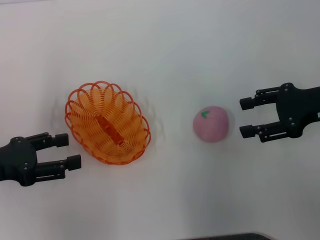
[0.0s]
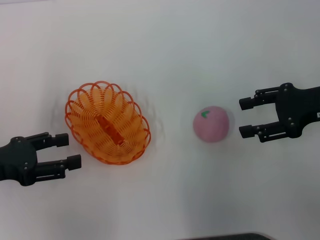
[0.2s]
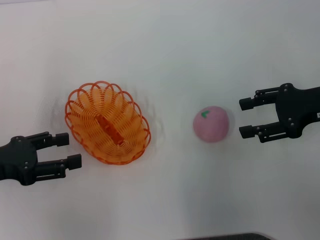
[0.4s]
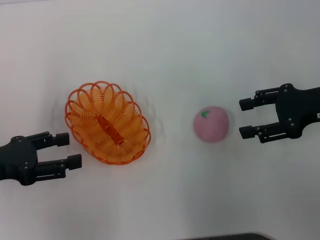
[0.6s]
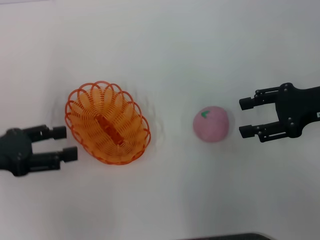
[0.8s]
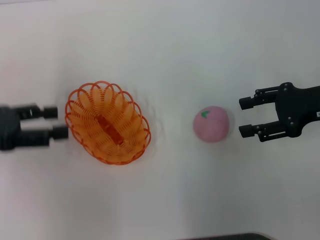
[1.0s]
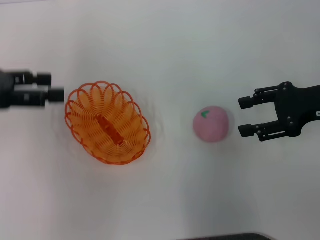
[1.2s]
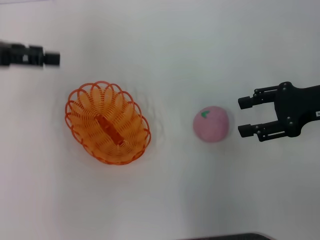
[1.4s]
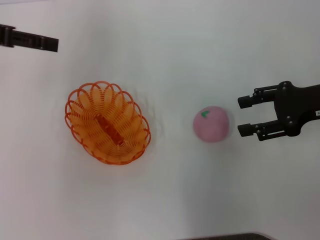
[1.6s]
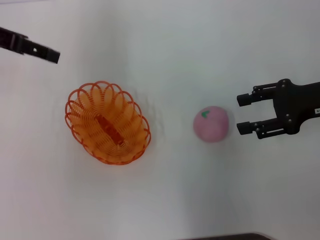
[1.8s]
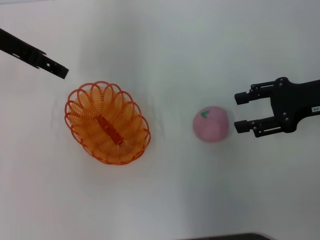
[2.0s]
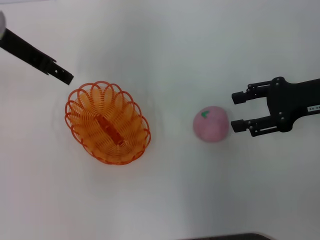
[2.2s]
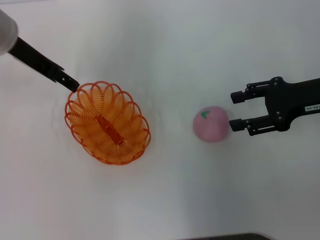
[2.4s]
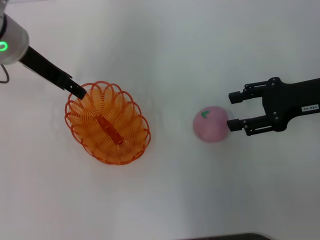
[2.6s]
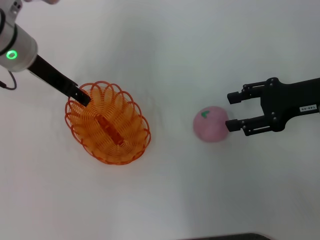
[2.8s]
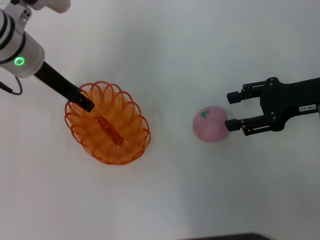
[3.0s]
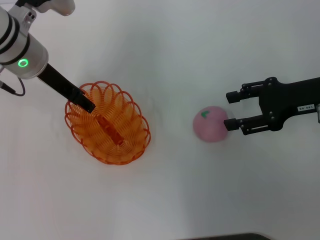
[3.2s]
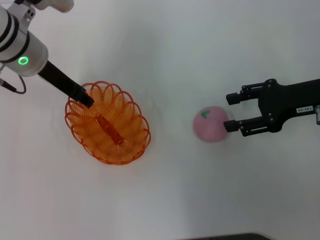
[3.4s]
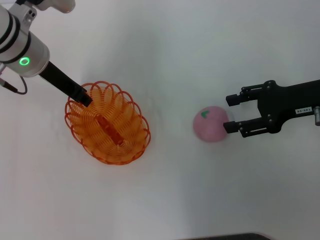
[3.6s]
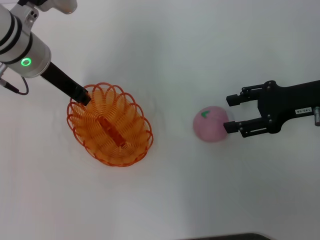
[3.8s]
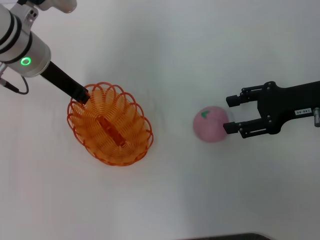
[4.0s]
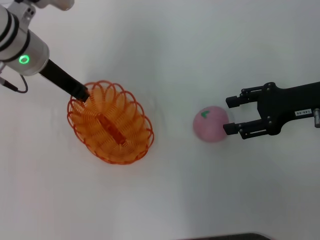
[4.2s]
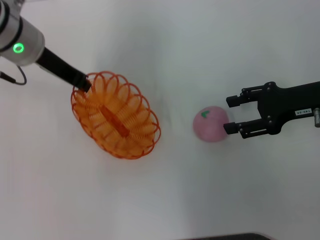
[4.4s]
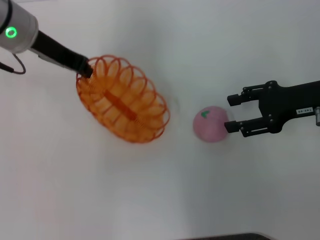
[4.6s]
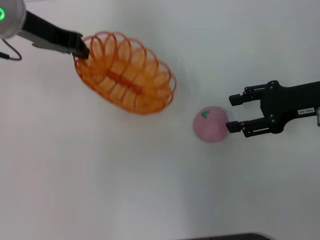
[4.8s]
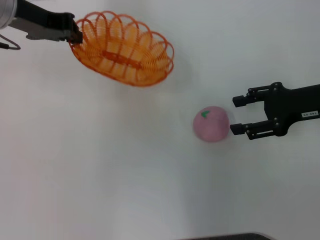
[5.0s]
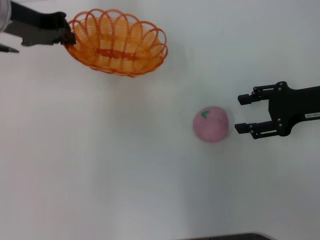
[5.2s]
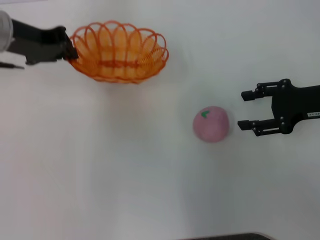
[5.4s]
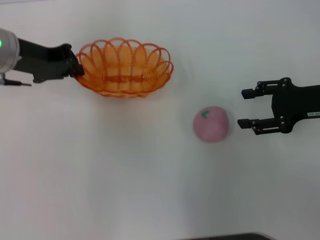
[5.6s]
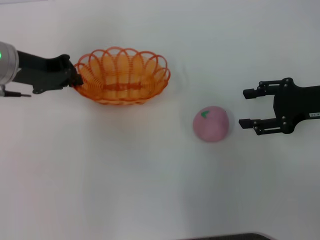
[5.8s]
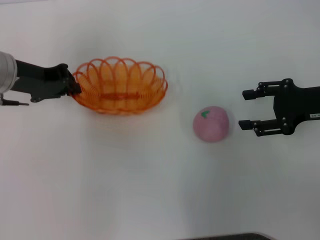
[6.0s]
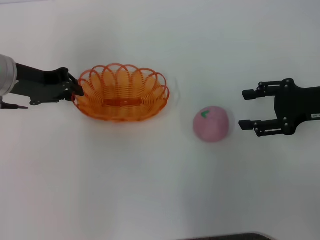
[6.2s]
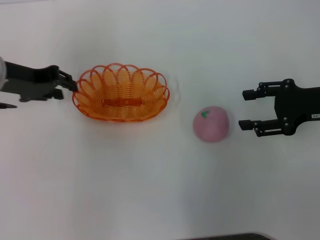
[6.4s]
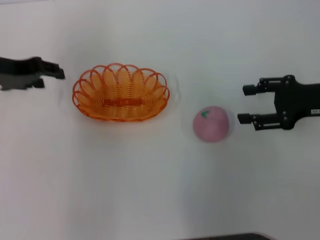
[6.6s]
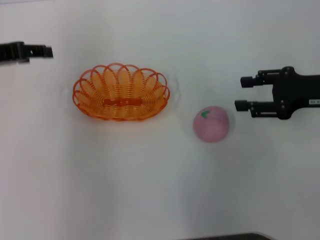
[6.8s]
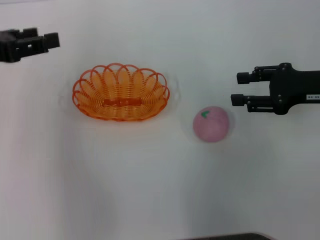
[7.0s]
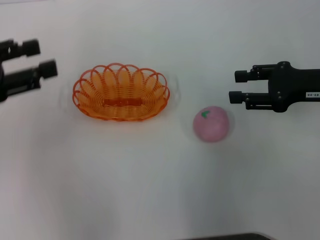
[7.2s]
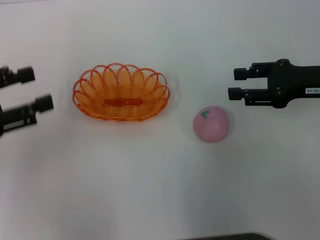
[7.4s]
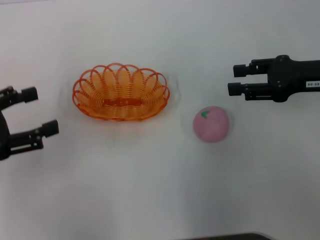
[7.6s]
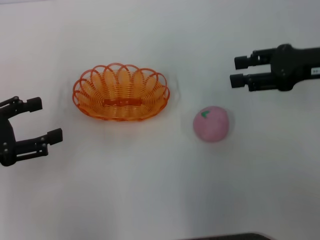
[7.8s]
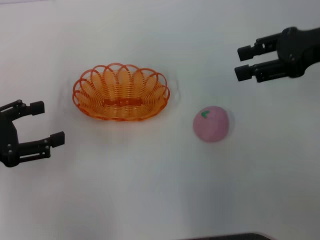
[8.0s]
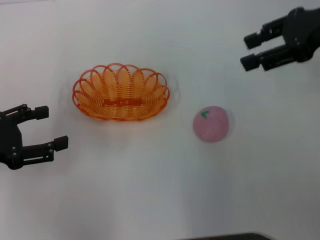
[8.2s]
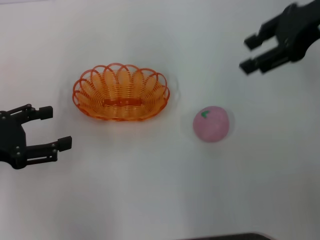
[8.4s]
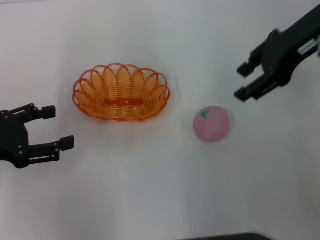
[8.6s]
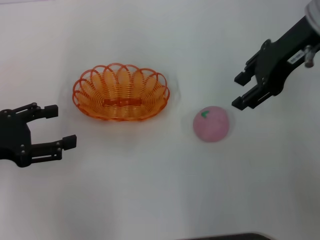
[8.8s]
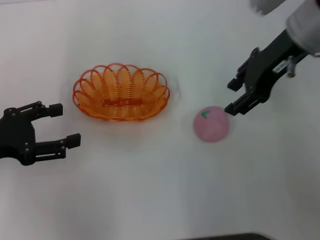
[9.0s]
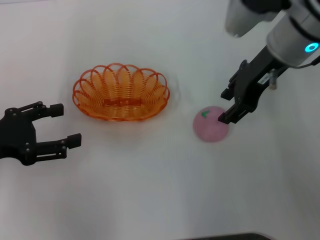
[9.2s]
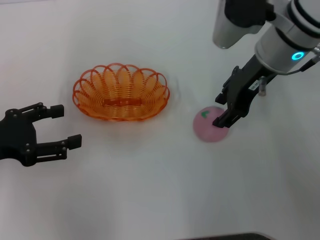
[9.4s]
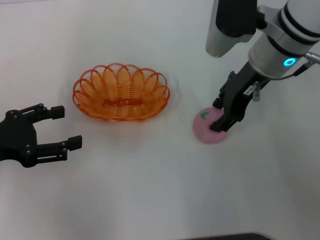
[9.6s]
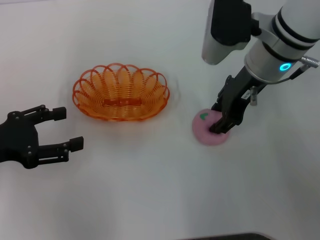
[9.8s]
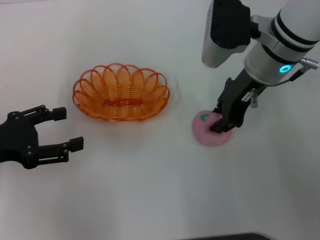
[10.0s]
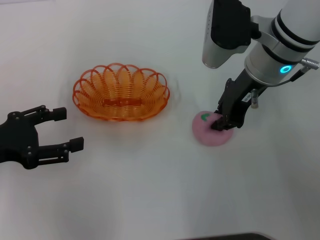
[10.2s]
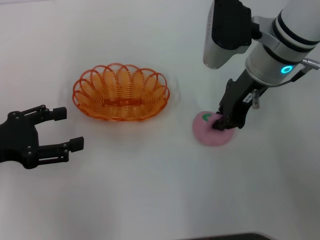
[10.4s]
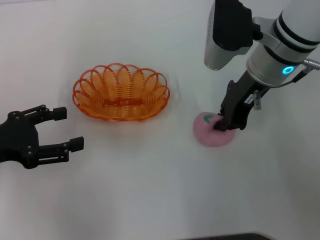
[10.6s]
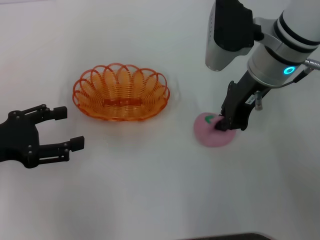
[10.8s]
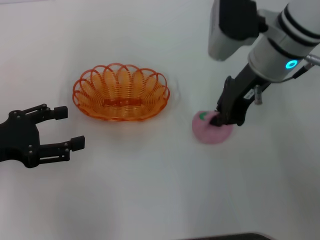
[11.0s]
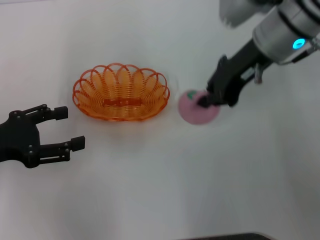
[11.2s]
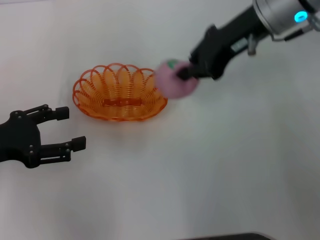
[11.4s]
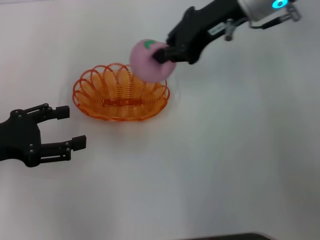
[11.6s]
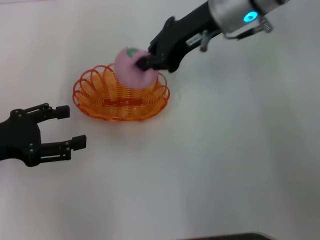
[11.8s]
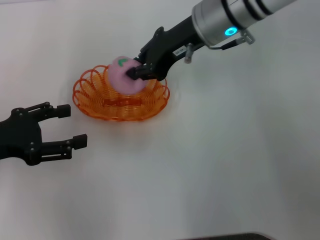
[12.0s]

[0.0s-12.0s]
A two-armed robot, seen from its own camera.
Step, 0.0s to 4.6s: Pick up the basket with the left gripper.
Step, 4.8s to 7.6s: Place the basket in the center of view with the left gripper.
Step, 7.8s to 11.4s: Pick up the peach with the right gripper.
0.0s to 1.6s: The left gripper travels upward and forward by some 20 cm.
1.6s to 3.0s: The left gripper moves to the right and downward, approximately 15 cm.
3.0s to 4.4s: The left gripper closes its fingers.
4.4s to 6.0s: The left gripper moves to the left, about 5 cm.
6.0s to 7.6s: The left gripper heads backward and to the left, covering roughly 15 cm, and opens its fingers.
7.6s to 9.0s: The right gripper travels to the left and upward by roughly 15 cm.
9.0s to 10.4s: The right gripper shifts some 5 cm downward, and closes up.
10.4s to 12.0s: The right gripper shifts roughly 5 cm to the left.

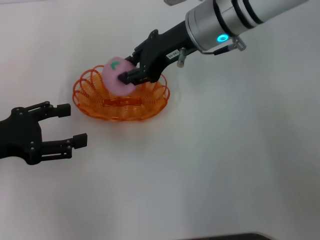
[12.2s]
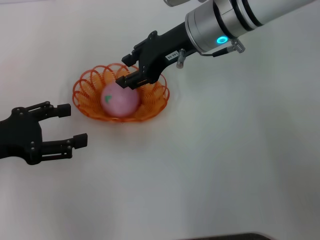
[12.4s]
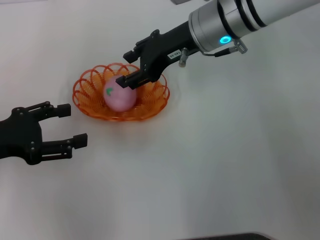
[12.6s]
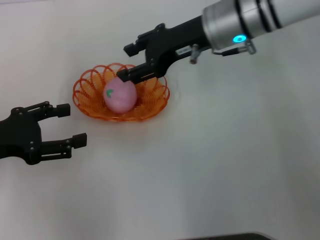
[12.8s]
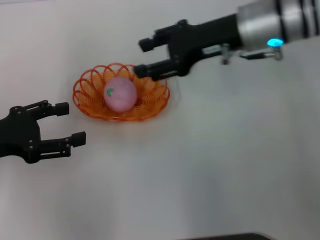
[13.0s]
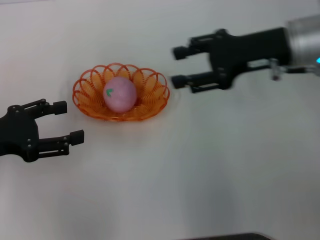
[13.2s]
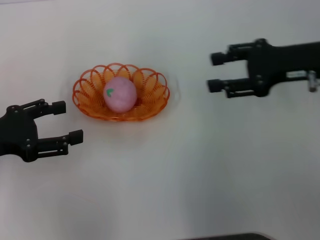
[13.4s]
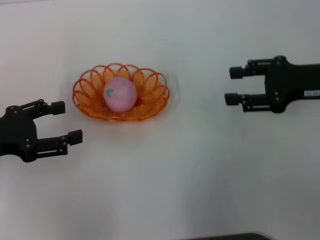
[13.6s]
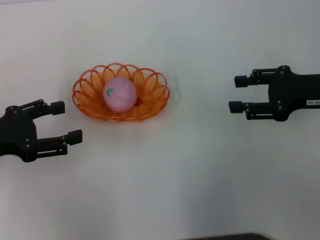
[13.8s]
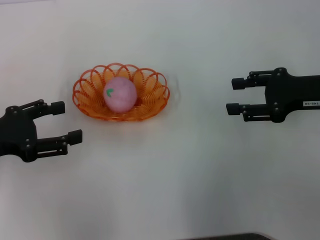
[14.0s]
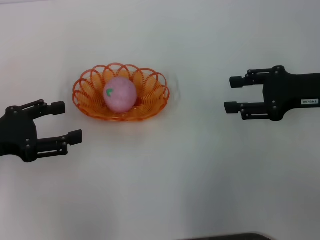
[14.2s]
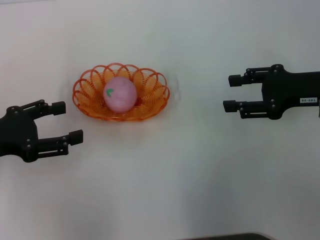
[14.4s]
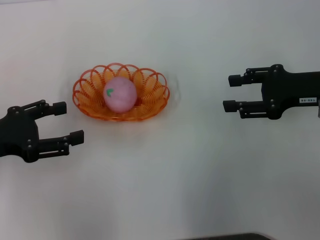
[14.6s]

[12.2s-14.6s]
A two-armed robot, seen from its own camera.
Step, 12.2s to 13.2s: Place the peach into the basket with the right gripper.
12.2s to 13.4s: The right gripper shifts about 20 cm to the right and backward, and opens.
13.4s to 14.6s: The grippers move only a little.

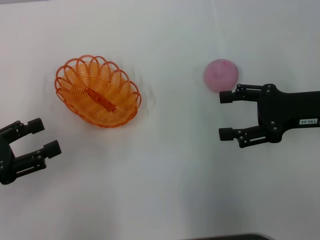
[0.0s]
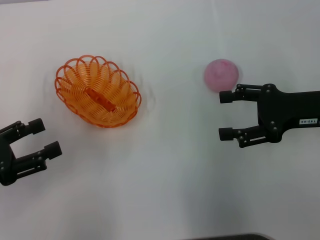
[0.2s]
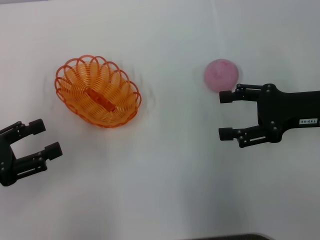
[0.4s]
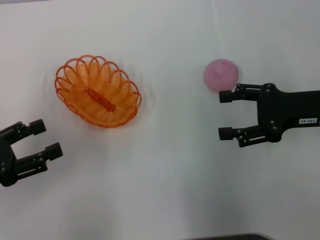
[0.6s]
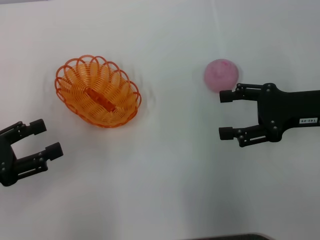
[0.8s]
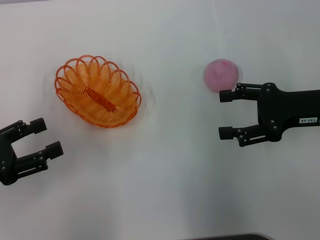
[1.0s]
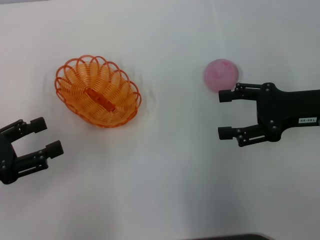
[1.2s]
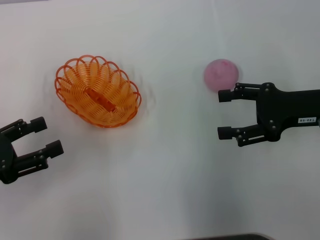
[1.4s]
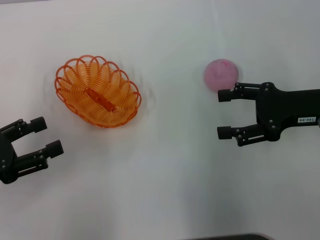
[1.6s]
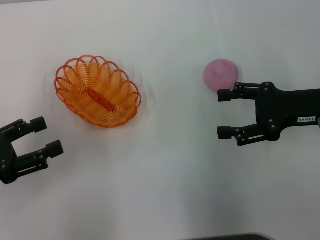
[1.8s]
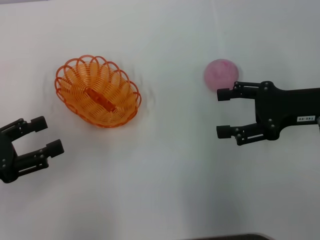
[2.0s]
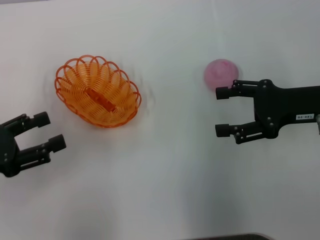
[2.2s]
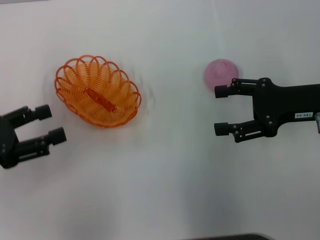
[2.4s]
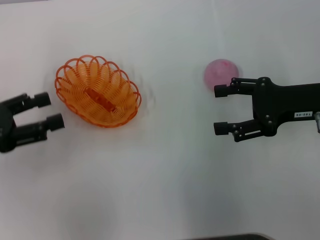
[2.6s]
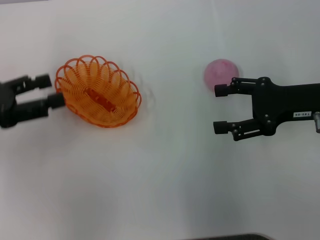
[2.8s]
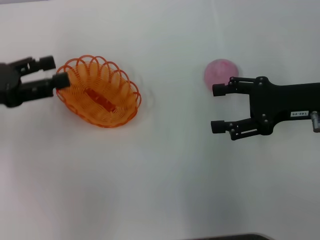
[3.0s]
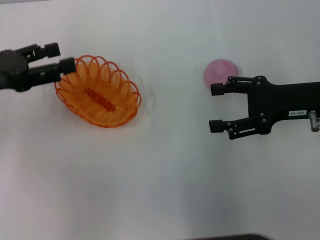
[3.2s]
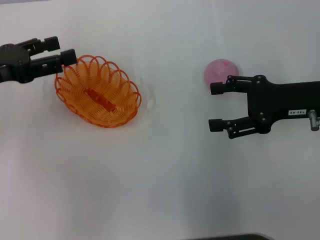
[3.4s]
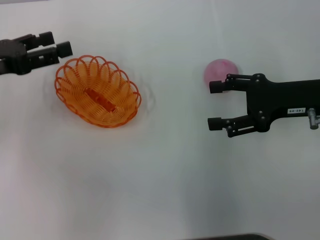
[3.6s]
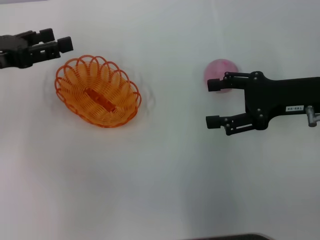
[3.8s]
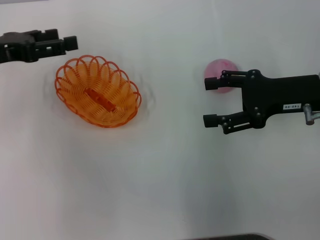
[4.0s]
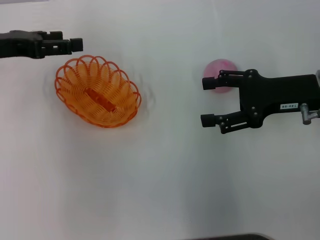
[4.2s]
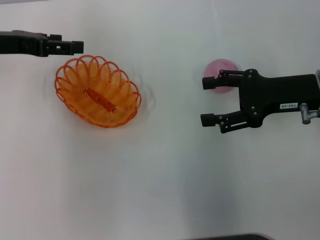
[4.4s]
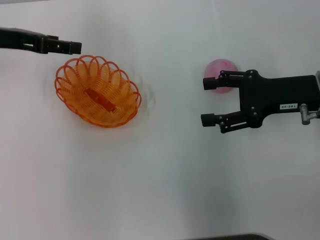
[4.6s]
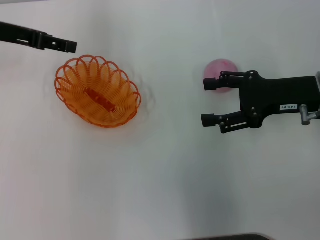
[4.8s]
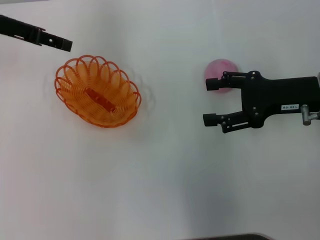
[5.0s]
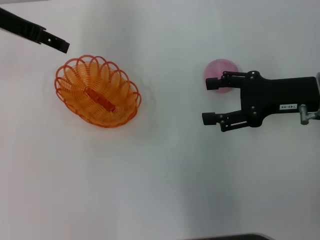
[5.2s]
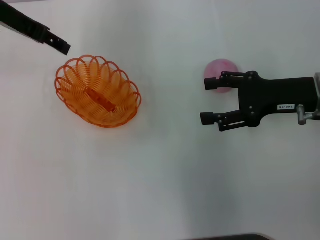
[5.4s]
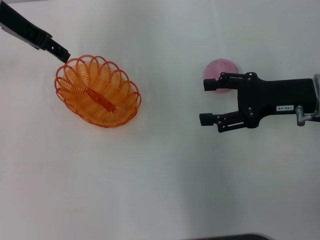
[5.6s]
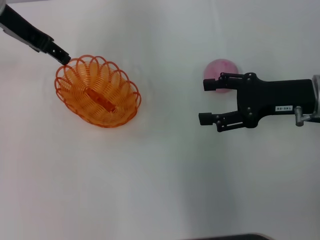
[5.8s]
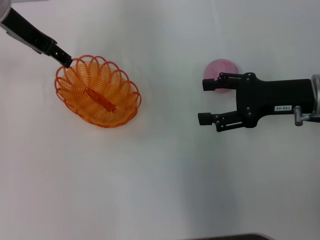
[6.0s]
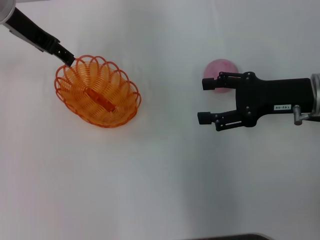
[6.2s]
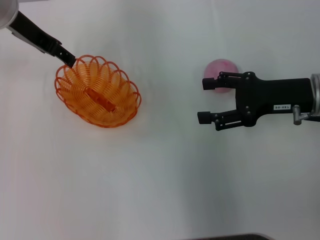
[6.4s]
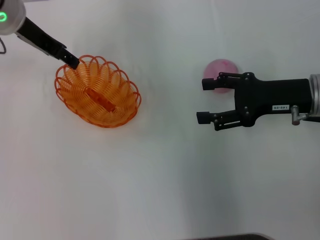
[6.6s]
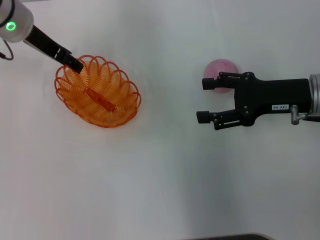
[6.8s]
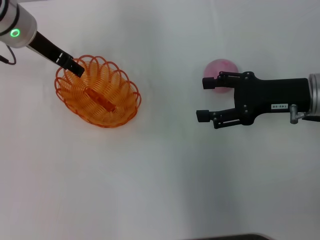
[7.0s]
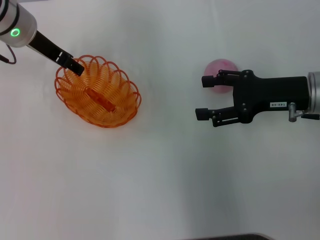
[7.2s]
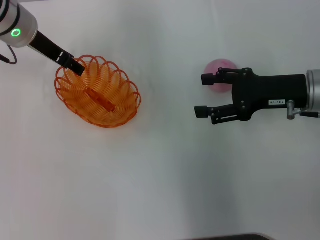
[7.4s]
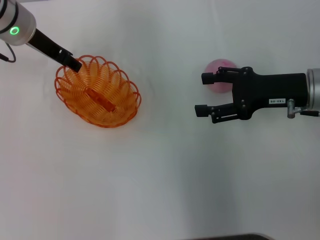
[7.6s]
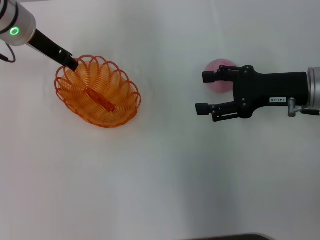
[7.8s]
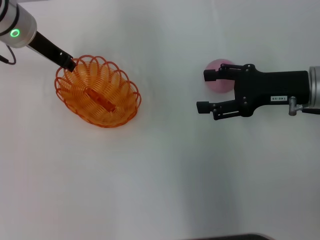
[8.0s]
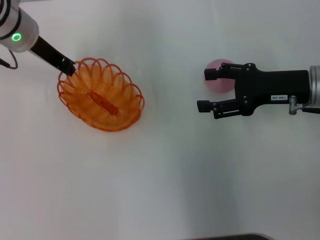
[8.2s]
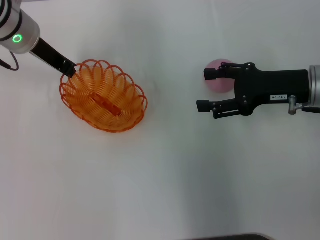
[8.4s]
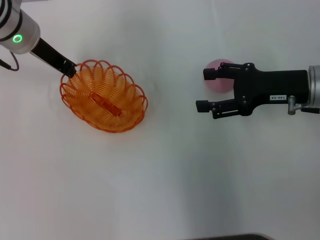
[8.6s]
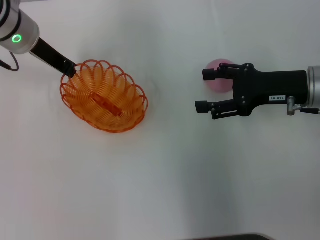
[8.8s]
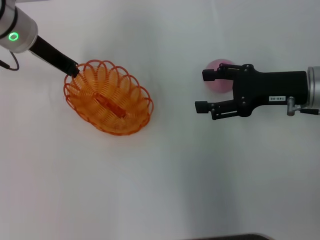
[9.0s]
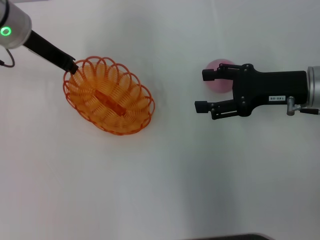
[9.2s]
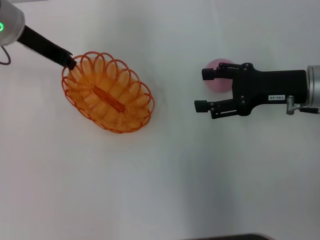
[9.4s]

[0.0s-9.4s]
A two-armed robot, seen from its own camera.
0.0s to 1.6s: Both grippers stay about where they are.
1.6s to 3.2s: The left gripper moves forward and upward, approximately 10 cm.
3.2s to 4.8s: The left gripper is displaced forward by roughly 10 cm.
4.8s to 6.2s: The left gripper goes approximately 5 cm to the right.
6.2s to 7.8s: The grippers stay close to where they were, moving slightly.
7.8s to 9.4s: The left gripper closes its fingers.
